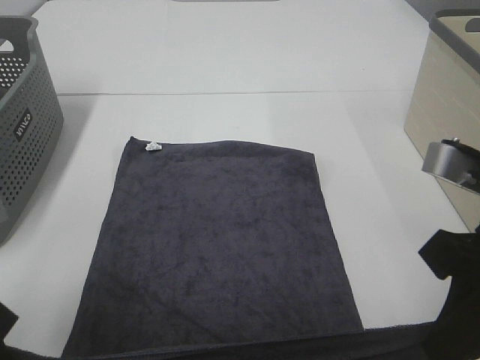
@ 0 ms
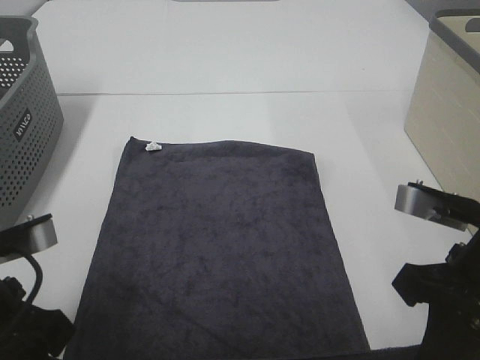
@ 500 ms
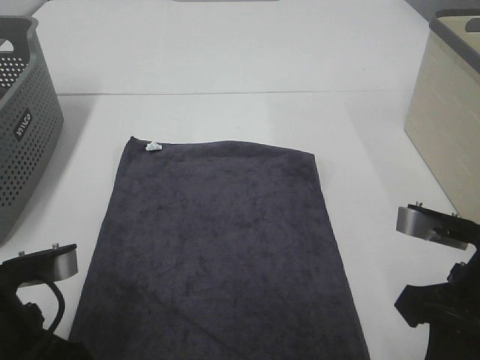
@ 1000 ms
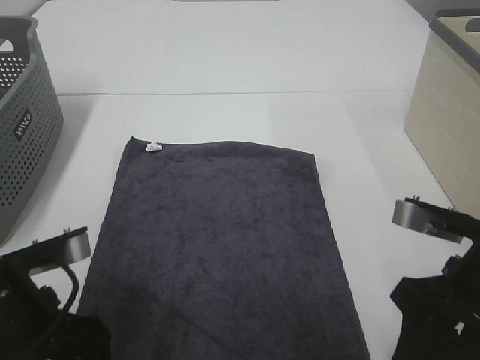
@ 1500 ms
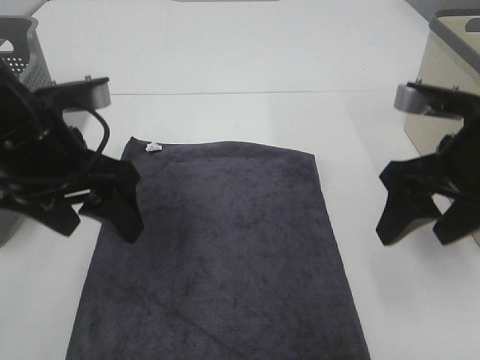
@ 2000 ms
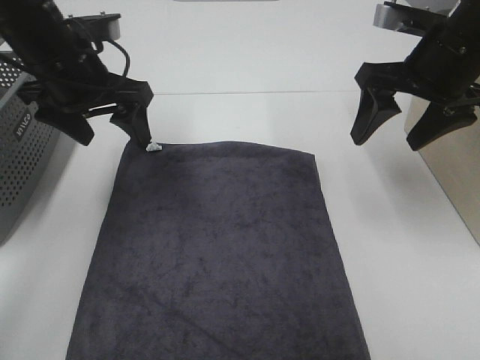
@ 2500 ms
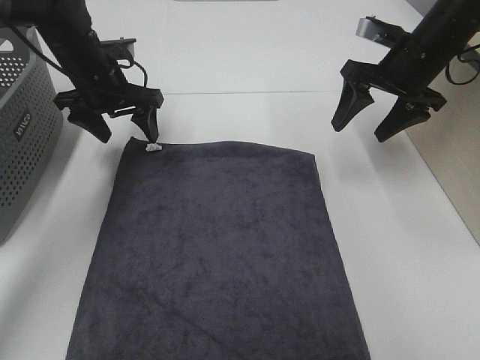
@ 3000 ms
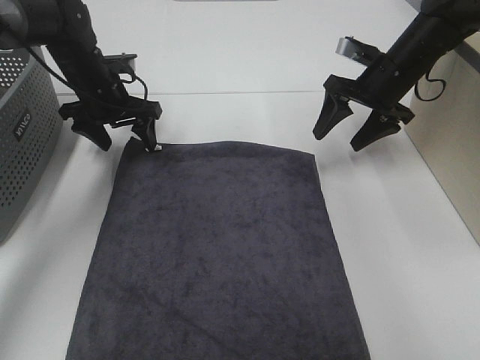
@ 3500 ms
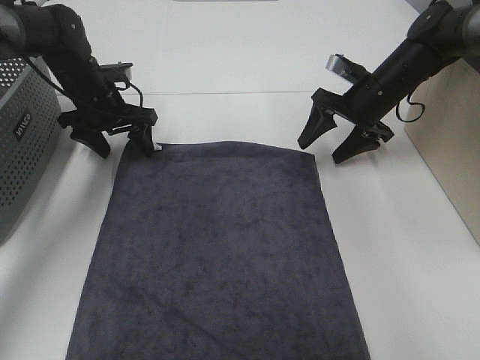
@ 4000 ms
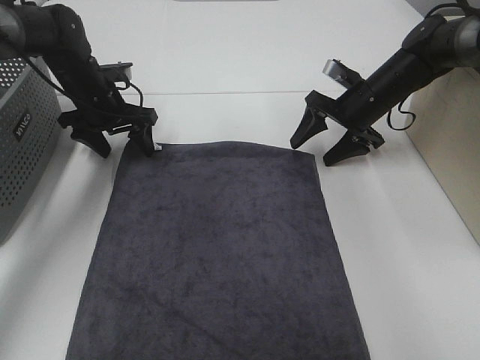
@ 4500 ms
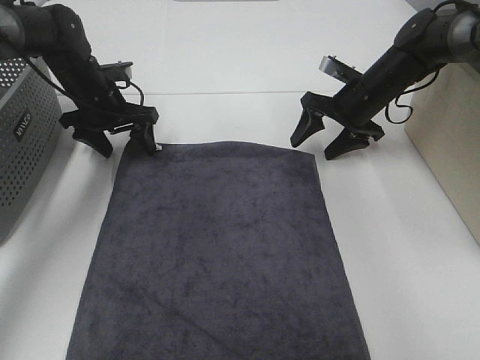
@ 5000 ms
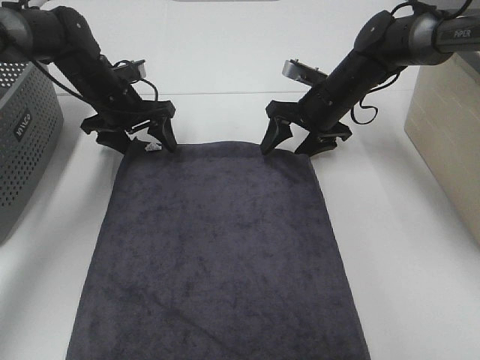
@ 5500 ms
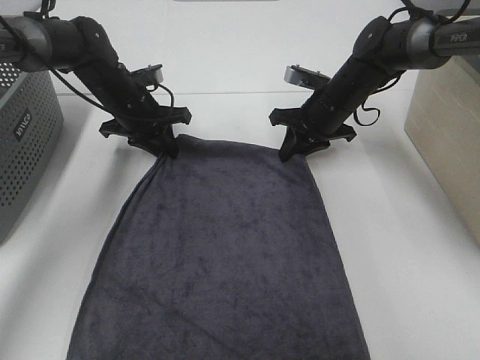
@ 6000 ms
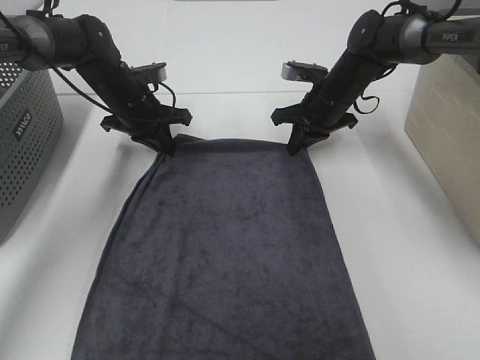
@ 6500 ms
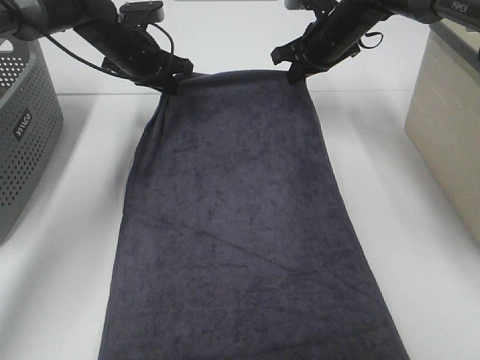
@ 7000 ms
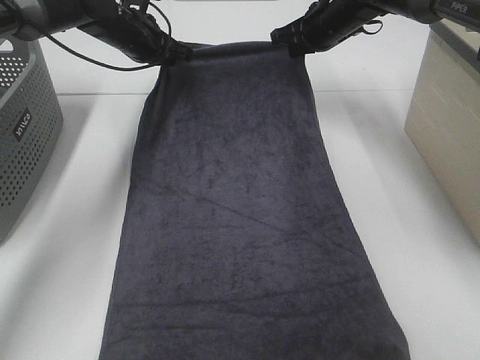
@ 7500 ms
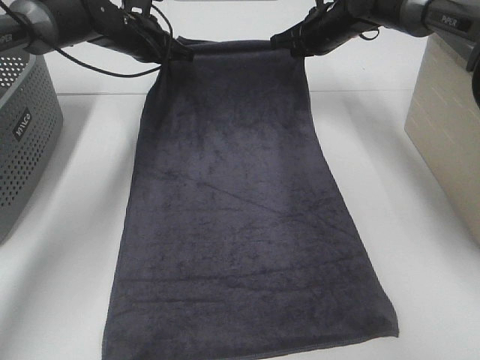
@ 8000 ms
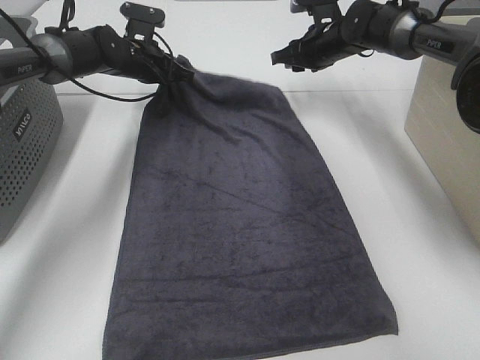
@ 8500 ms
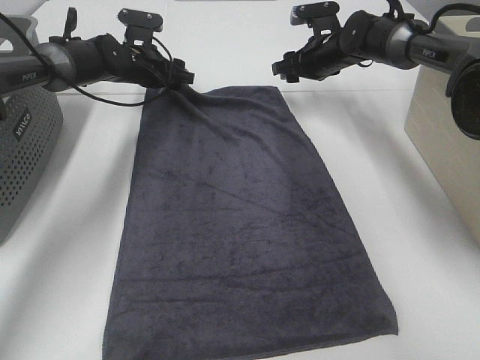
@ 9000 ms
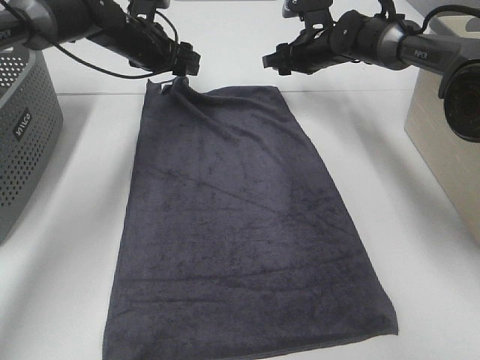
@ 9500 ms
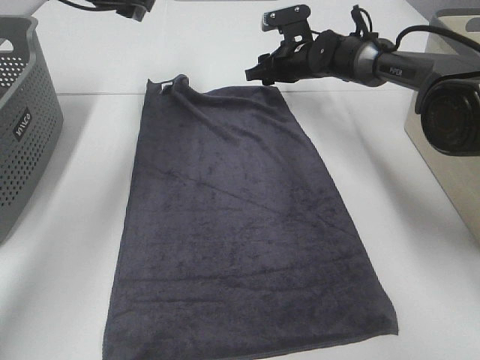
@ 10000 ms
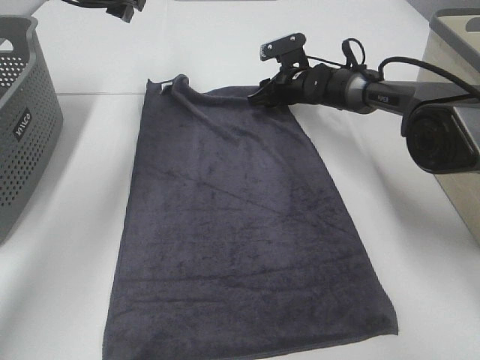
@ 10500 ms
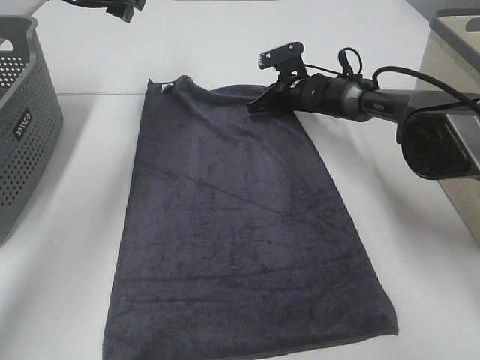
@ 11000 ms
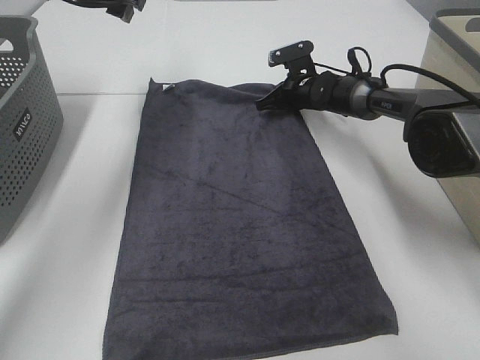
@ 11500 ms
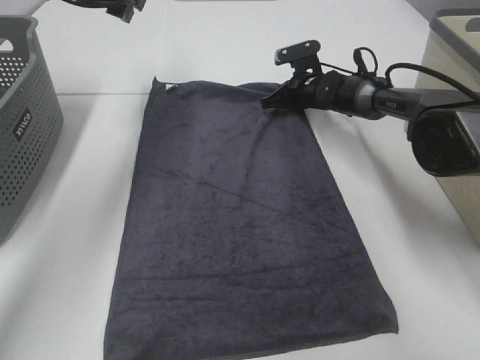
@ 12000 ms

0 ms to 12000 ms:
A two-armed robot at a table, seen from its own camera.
Task of the whole recording: Remove the towel and place it.
Step, 0 ms to 4500 ms: Right hand:adjust the gray towel.
0 ms to 2000 ms: Both grippers move forward, some 10 cm. The right gripper opens up, while the left gripper opens.
2000 ms to 4000 ms: The two grippers go roughly 25 cm forward and downward.
4000 ms to 6000 ms: The right gripper heads to the left, covering about 5 cm, and closes up. The left gripper closes up.
6000 ms to 8000 ms: The grippers both shift forward and upward by approximately 10 cm.
8000 ms to 10000 ms: The left gripper shifts roughly 10 cm upward, and opens; the right gripper shifts roughly 5 cm downward, and opens up.
10000 ms to 12000 ms: The right gripper shifts some 5 cm downward, and closes its fingers.

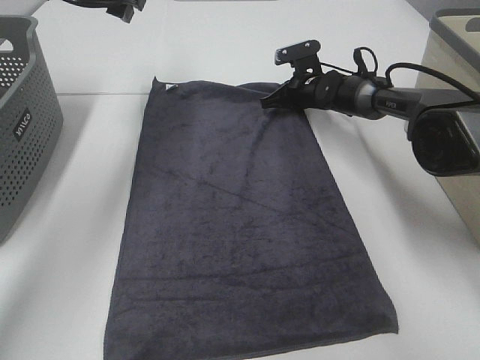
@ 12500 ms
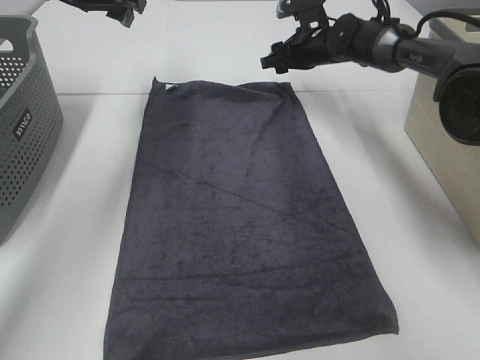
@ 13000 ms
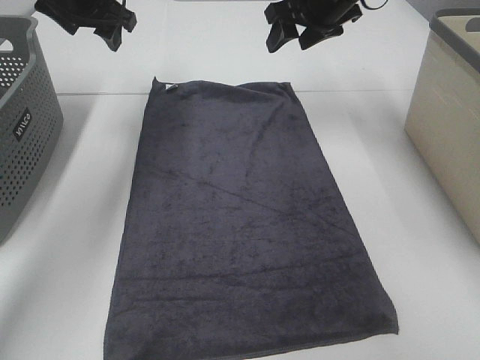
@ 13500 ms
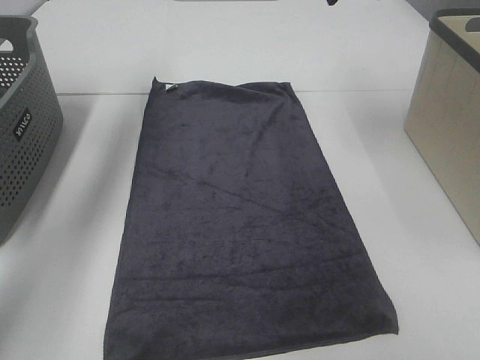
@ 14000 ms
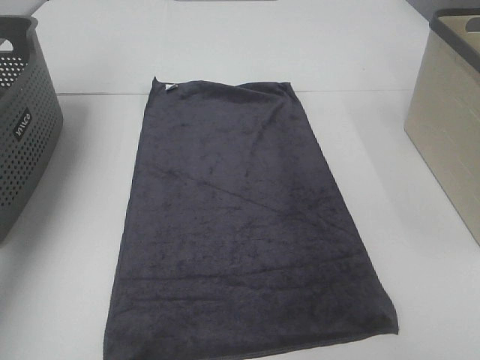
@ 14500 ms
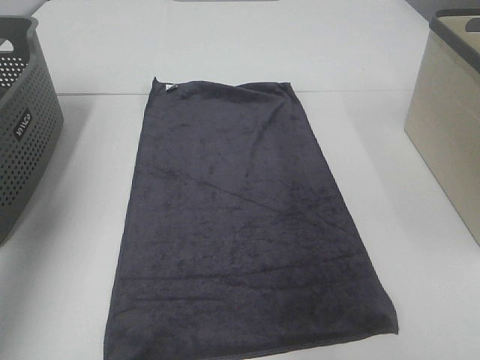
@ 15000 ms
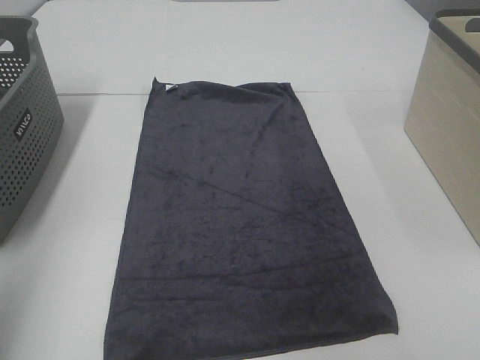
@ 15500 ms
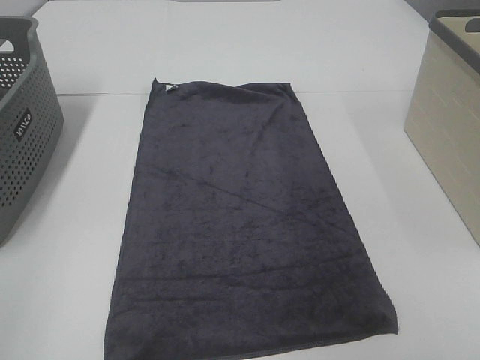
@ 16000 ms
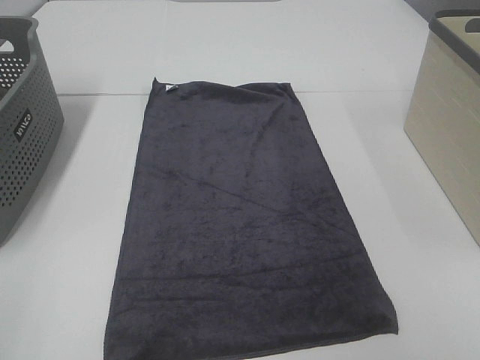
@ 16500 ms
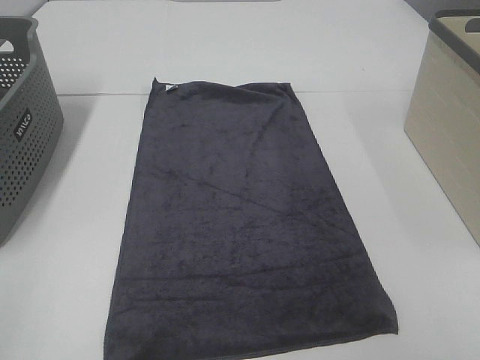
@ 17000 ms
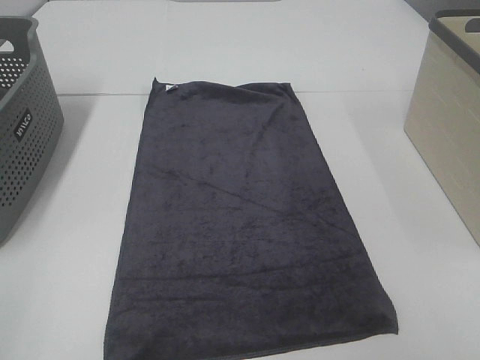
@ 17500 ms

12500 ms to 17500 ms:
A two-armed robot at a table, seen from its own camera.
Task of the whole recording: Remove the towel and place it.
12500 ms to 15000 ms: The right gripper goes some 50 cm upward and backward, and opens. Meanwhile the left gripper moves backward, upward and to the left, approximately 35 cm.
15000 ms to 17500 ms: The left gripper moves backward and downward, some 30 cm.

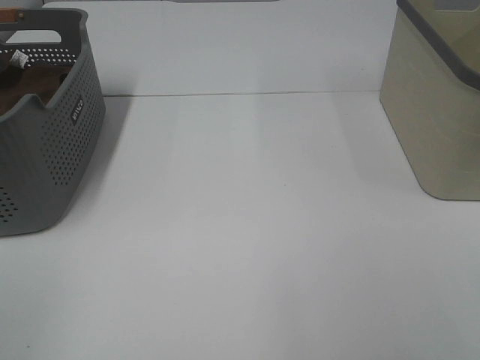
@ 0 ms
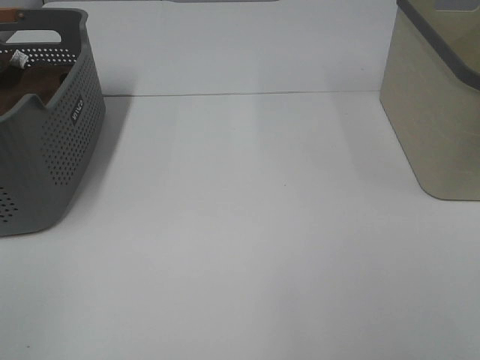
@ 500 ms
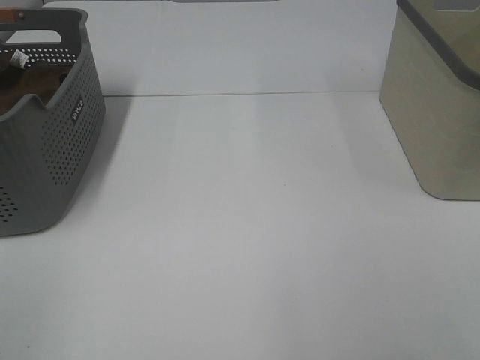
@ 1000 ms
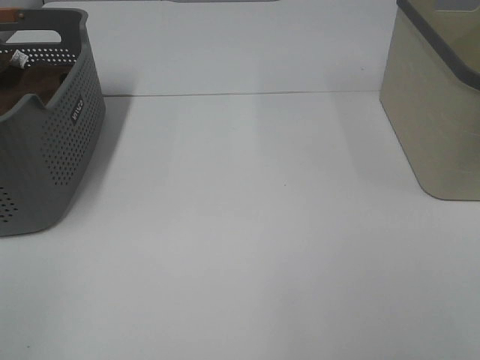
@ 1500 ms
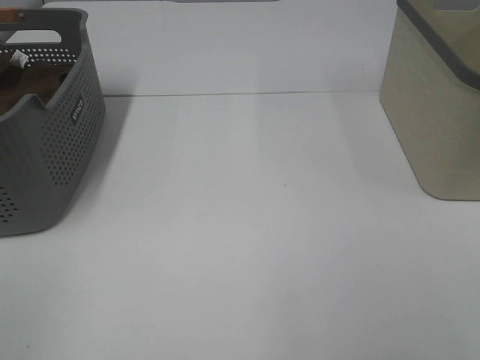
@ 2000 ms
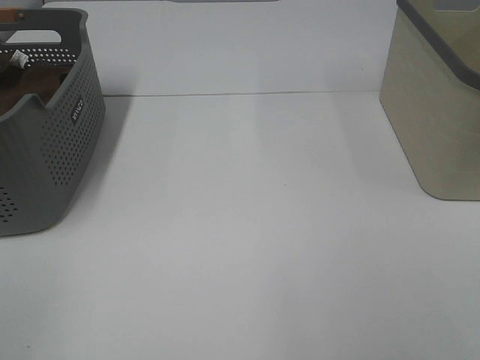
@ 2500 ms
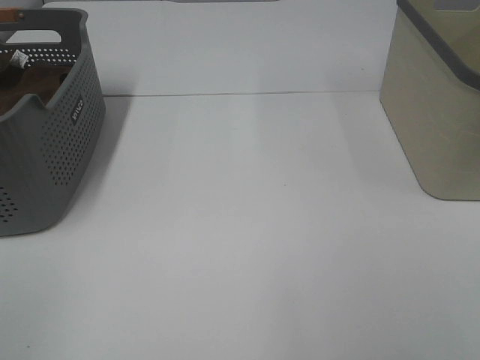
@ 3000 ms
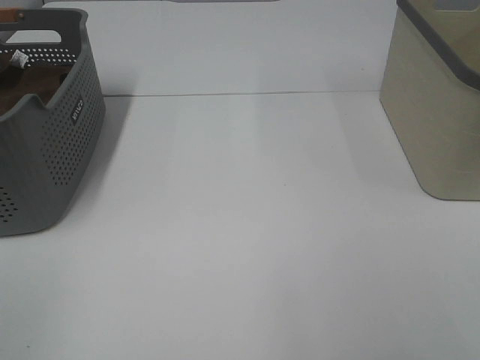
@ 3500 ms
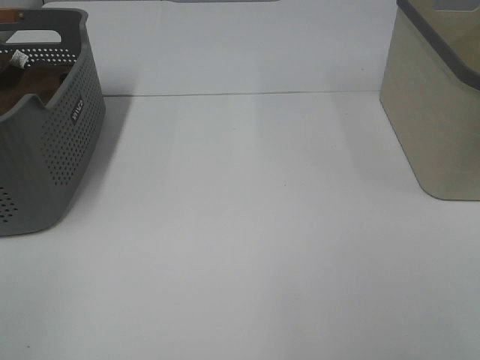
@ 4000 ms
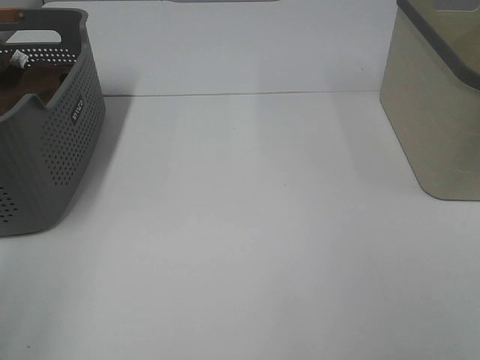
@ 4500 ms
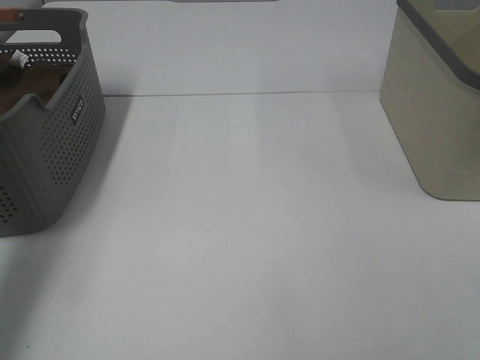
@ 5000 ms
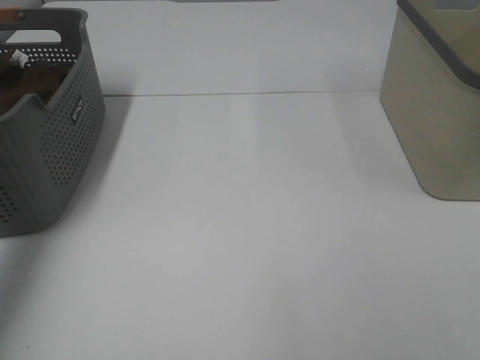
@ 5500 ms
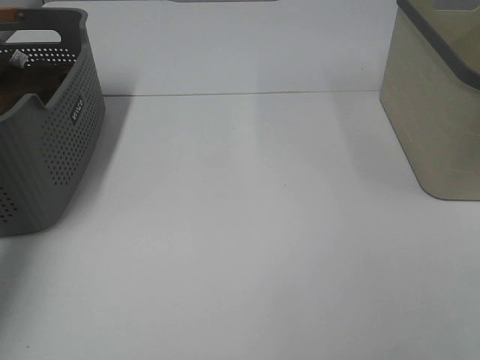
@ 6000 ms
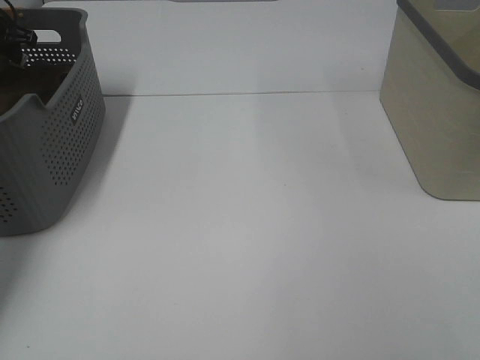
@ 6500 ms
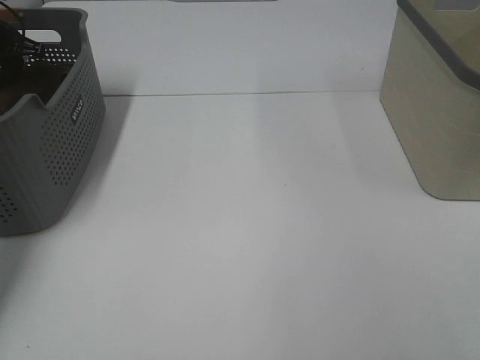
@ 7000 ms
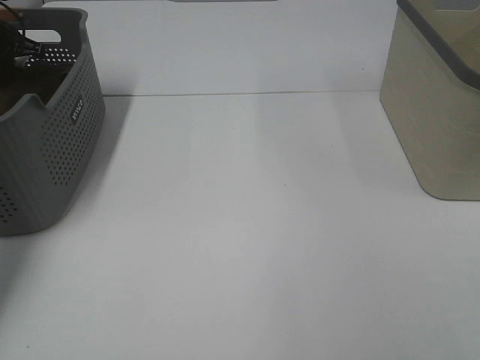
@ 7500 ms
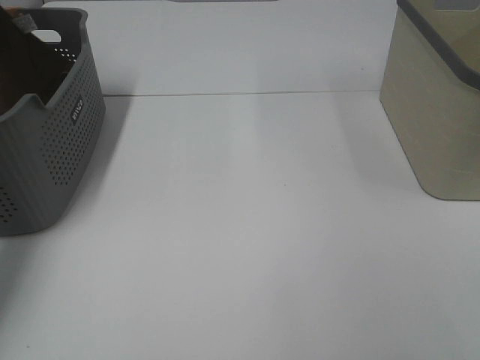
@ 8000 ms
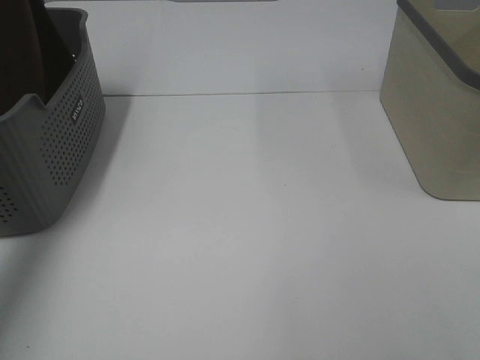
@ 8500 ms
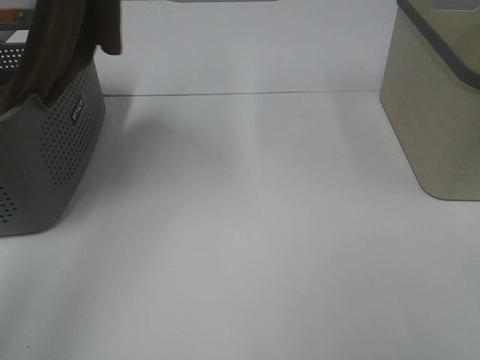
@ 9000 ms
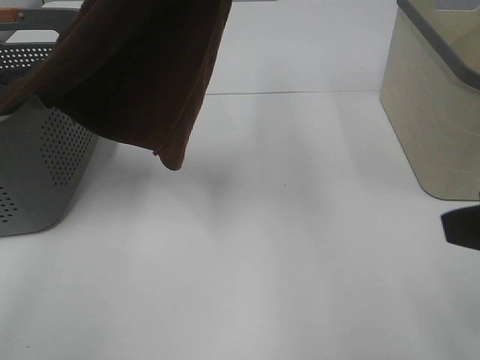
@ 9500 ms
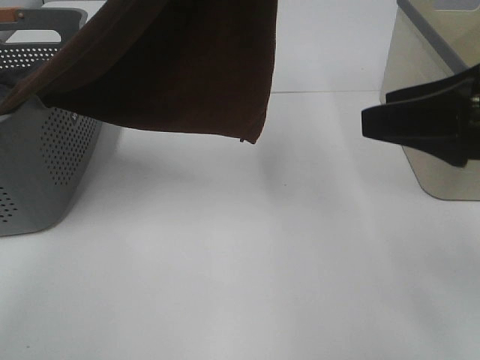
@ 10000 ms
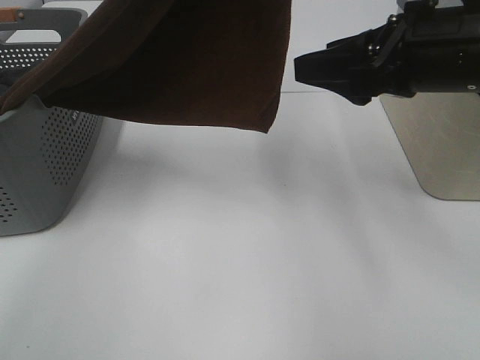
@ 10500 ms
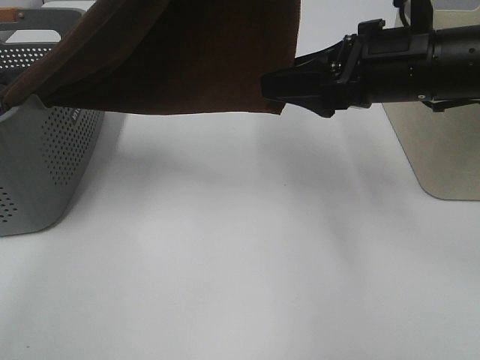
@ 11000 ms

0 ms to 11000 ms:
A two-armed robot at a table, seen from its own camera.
Task of the whole recording: Remove the towel and place it.
Step, 8500 ms to 10500 ms: Right hand: grab a corner of the brown towel and straighten it.
0 ms to 3500 ms: The two grippers keep their place.
3500 ms to 5500 ms: The left gripper heads forward, covering about 40 cm.
5500 ms to 7500 ms: The left gripper is displaced forward and downward by approximately 20 cm, and closes its fingers.
7500 ms to 9000 ms: The left gripper travels upward, to the right and backward by roughly 40 cm.
9000 ms to 11000 ms: The left gripper is displaced to the right and backward by roughly 15 cm. Meanwhile the right gripper moves forward and to the left, approximately 30 cm.
